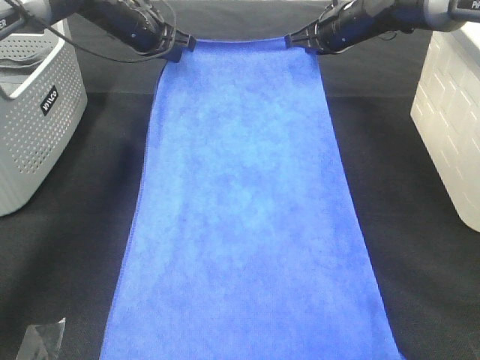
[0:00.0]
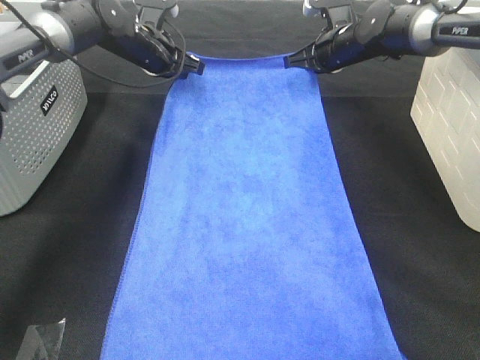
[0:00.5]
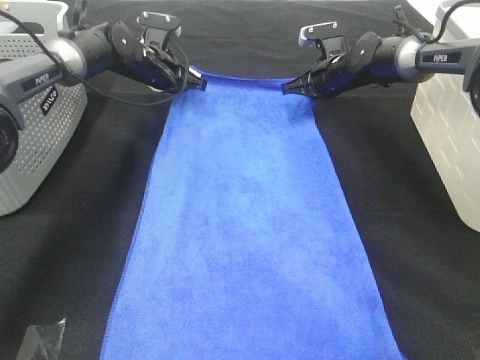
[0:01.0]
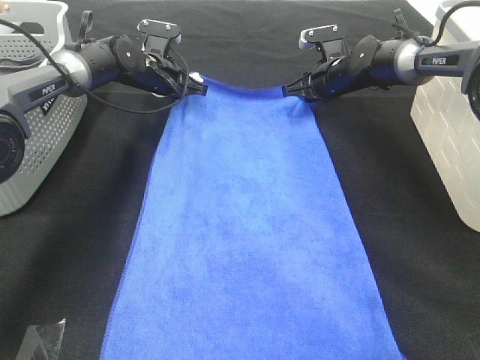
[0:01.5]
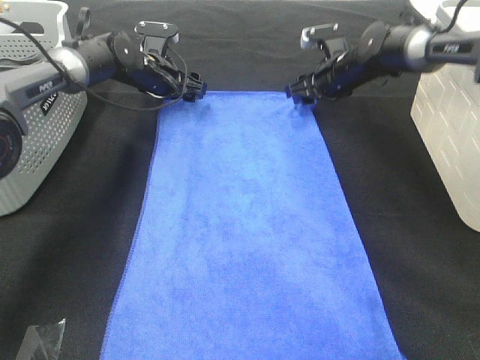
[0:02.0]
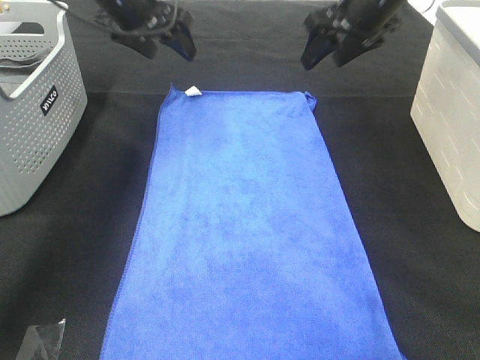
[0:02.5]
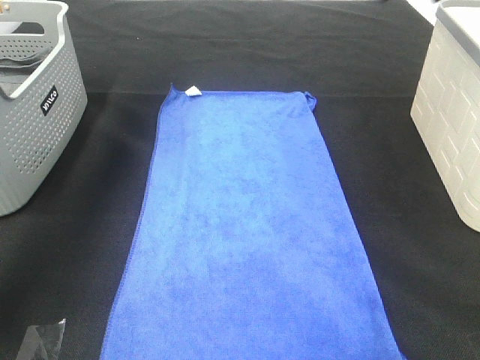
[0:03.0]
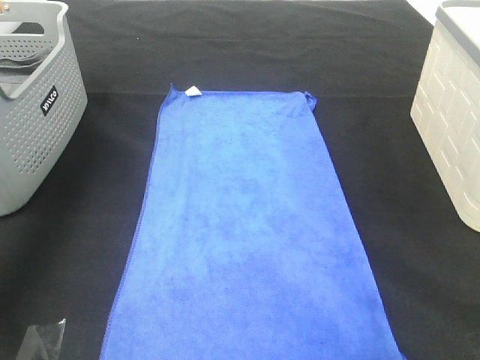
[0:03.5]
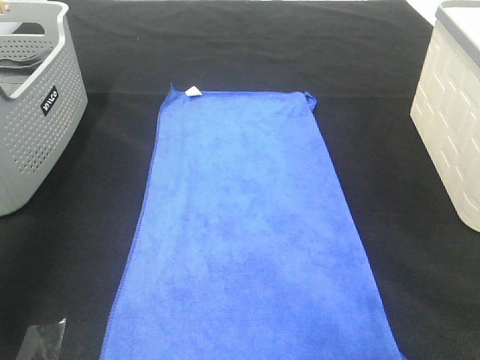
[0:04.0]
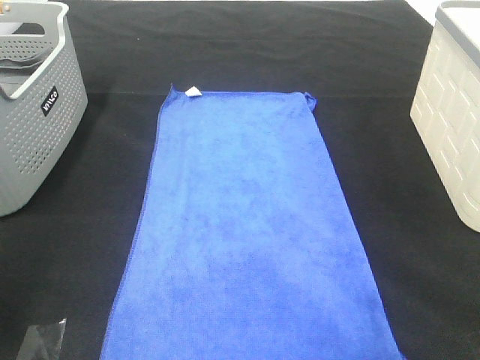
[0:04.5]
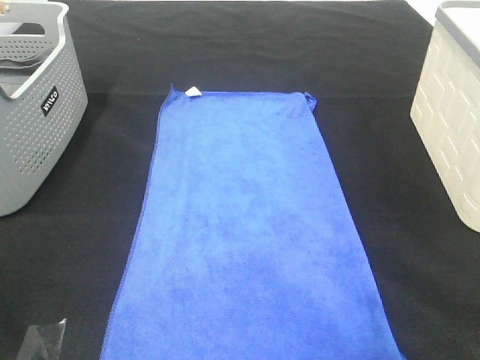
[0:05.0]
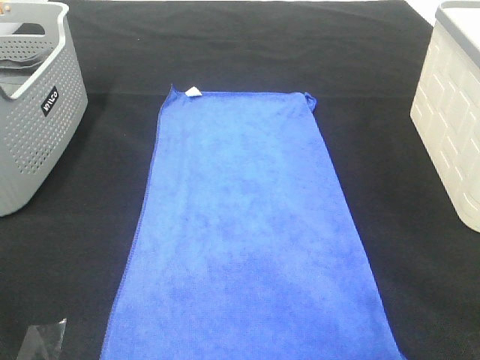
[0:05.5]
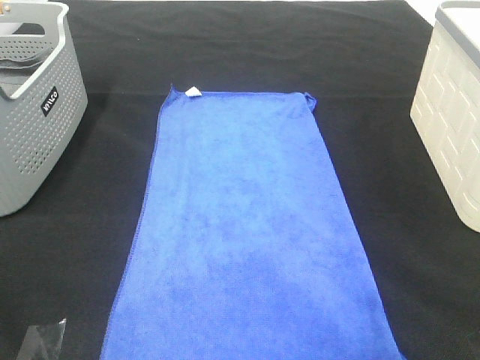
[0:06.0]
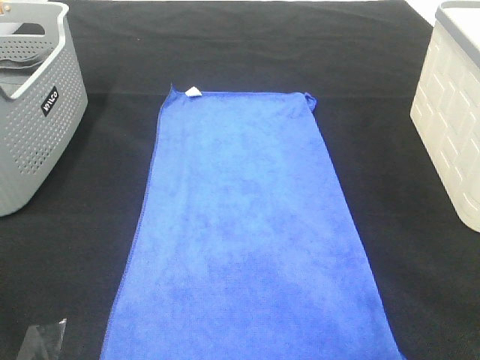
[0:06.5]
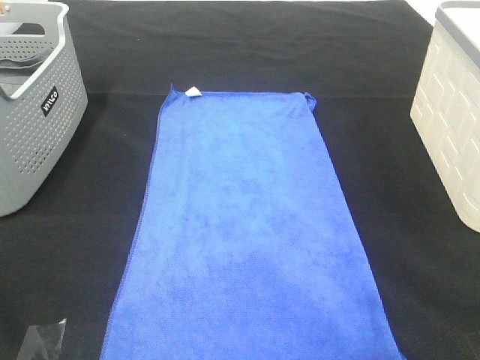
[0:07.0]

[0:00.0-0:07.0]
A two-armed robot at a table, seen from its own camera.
Task of the whole recording: Remove the towel and place it.
0:00.0 to 0:02.0: The grippers both shift downward by roughly 10 cm. The right gripper opens up; the left gripper opens.
0:02.0 to 0:03.5: The left gripper shifts some 35 cm upward, backward and to the left. Meanwhile the right gripper travels upward, backward and to the right by approximately 40 cm.
0:03.5 to 0:05.0: The left gripper travels backward by some 40 cm.

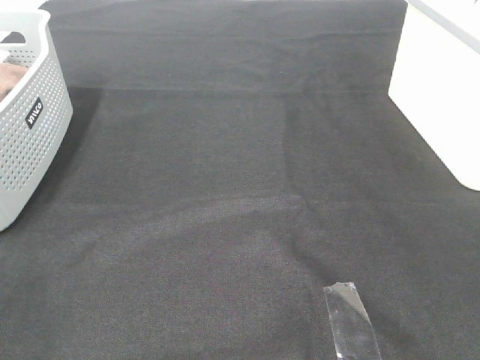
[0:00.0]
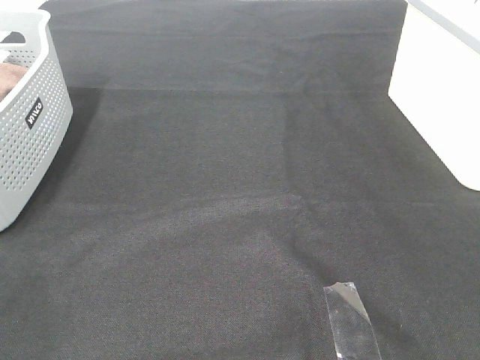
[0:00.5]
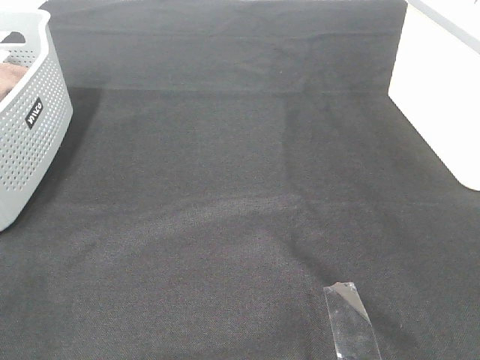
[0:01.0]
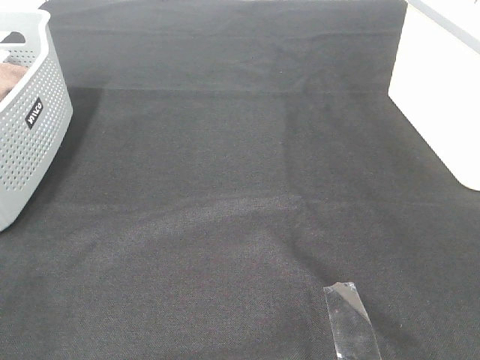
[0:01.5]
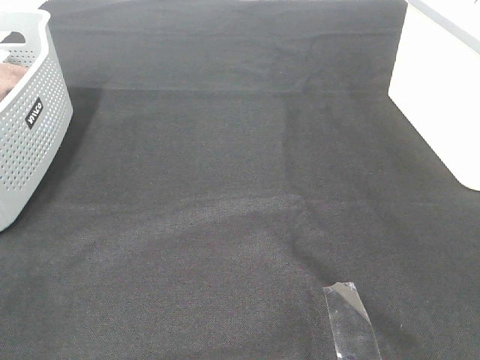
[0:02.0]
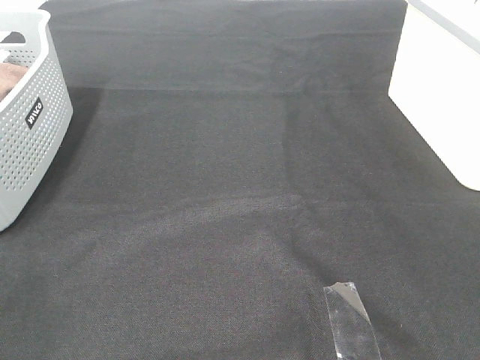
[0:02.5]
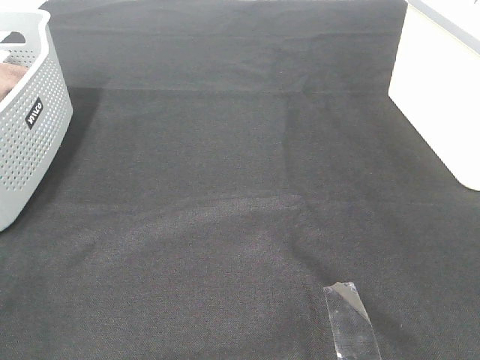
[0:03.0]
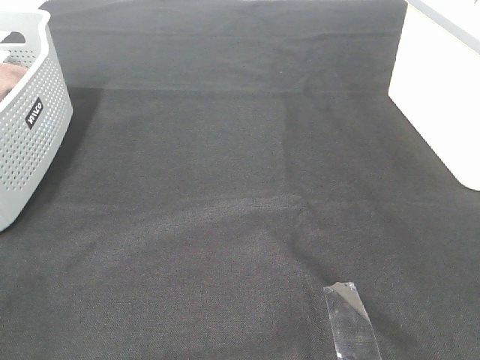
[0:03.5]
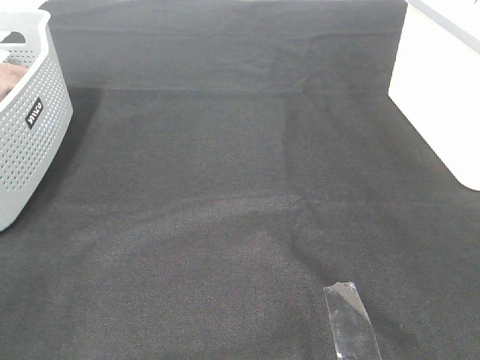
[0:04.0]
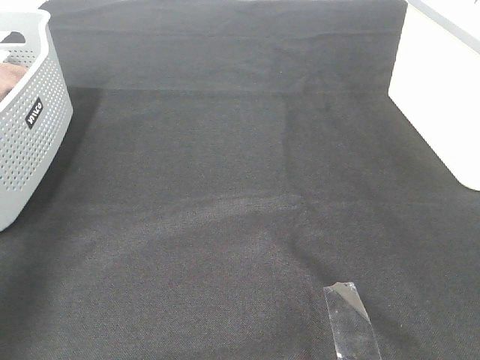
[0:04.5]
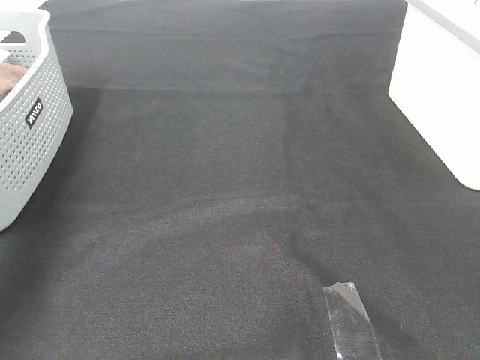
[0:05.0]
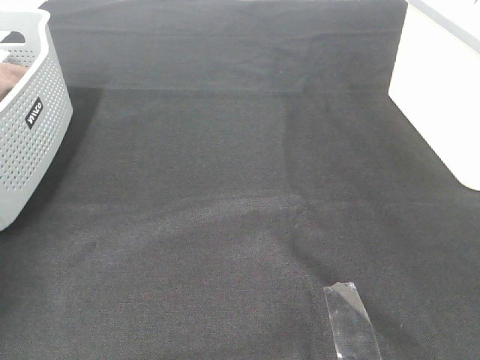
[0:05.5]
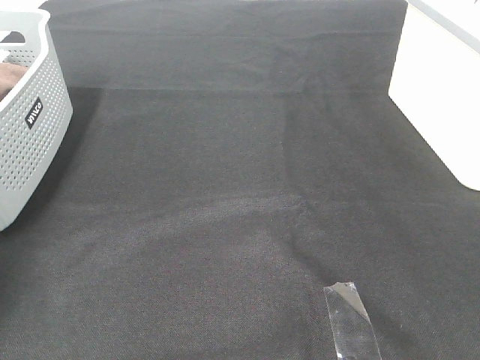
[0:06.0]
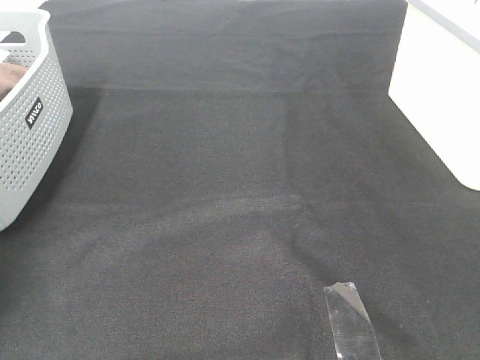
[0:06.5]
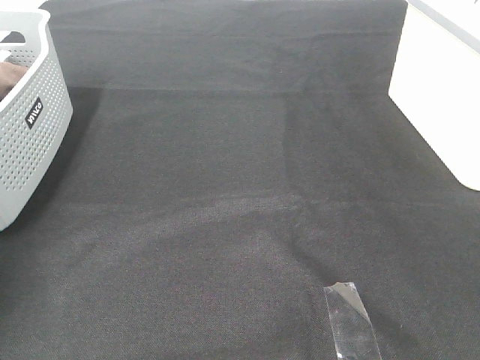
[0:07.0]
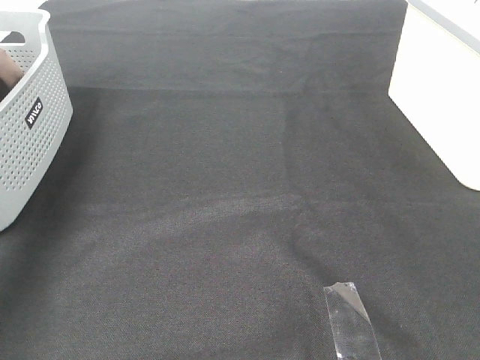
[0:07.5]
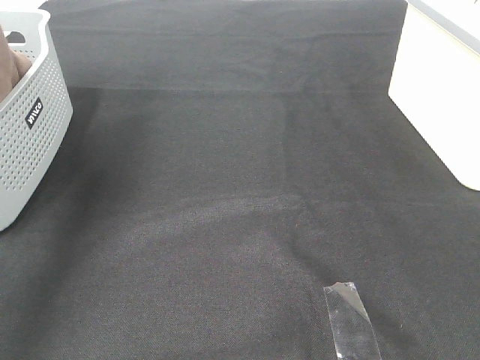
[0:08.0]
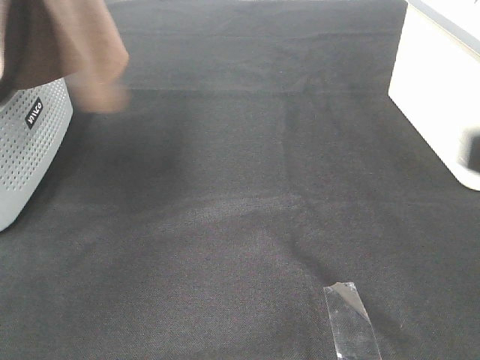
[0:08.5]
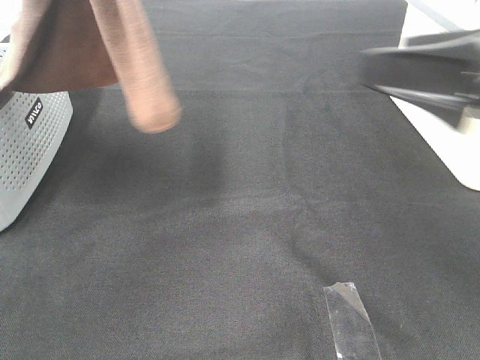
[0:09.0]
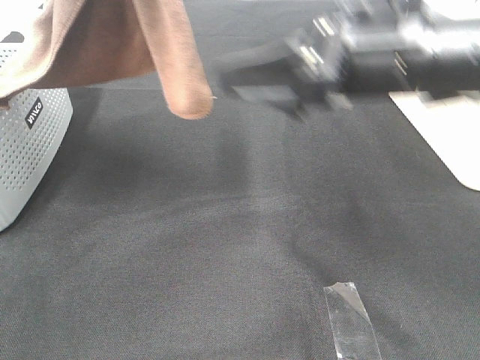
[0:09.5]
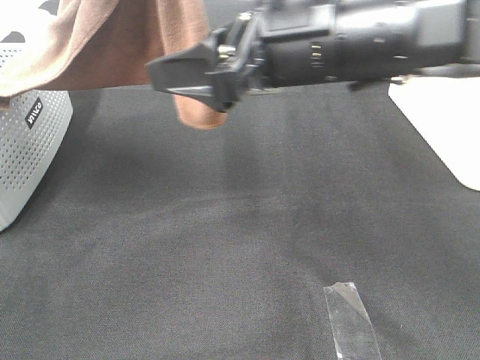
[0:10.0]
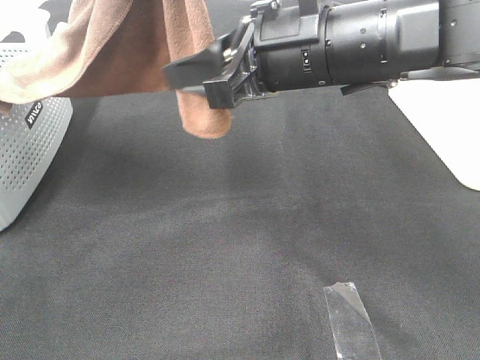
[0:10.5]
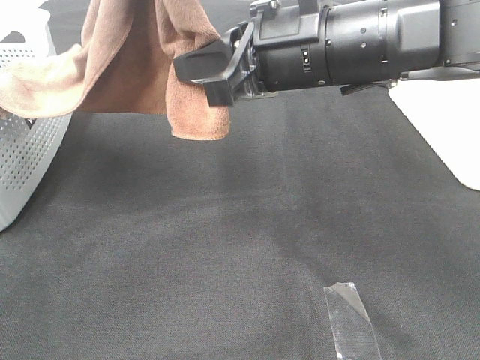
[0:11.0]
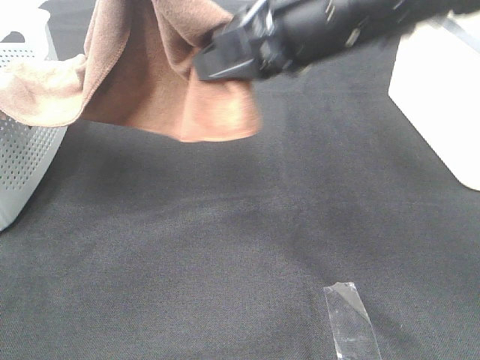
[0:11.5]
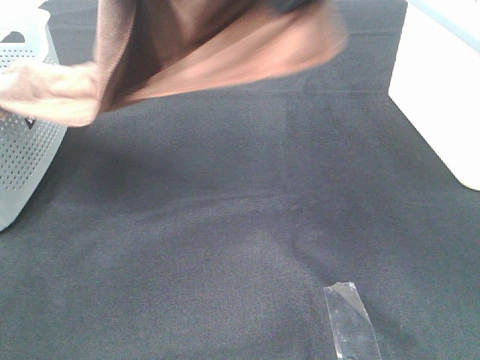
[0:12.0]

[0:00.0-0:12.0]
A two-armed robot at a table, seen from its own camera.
Task of the whole recording: Remove the towel and place it.
0:00.0 to 0:02.0: Both grippers stay put.
0:04.0 to 0:06.0: The left gripper heads forward, covering about 40 cm.
0:06.0 to 0:08.0: The left gripper is displaced upward, to the right and backward by about 35 cm, and closes up.
0:08.0 to 0:10.0: The right gripper goes some 35 cm forward and to the left; the left gripper travels to the right by approximately 15 cm.
0:10.0 to 0:12.0: The right gripper heads upward, covering some 15 cm, and closes up.

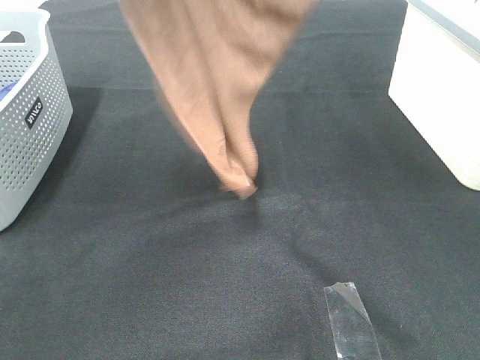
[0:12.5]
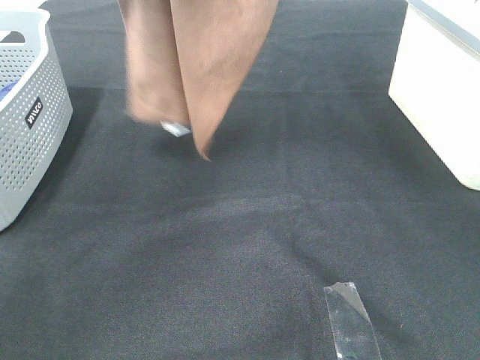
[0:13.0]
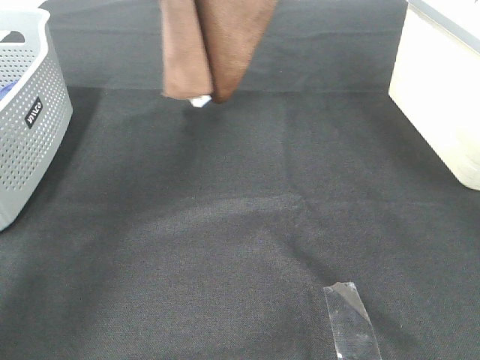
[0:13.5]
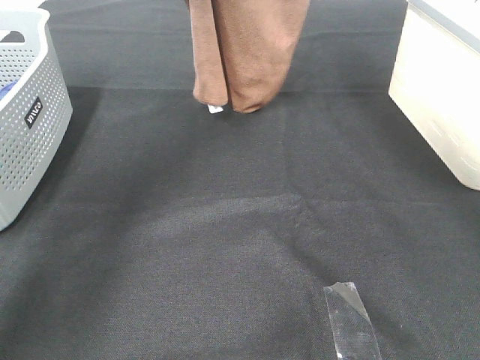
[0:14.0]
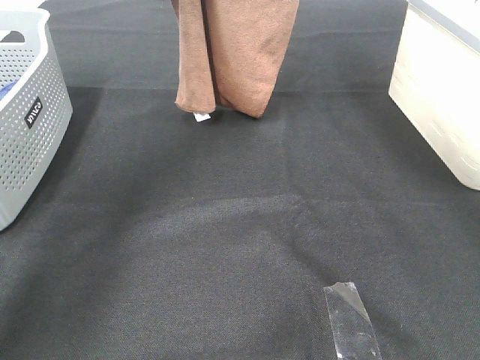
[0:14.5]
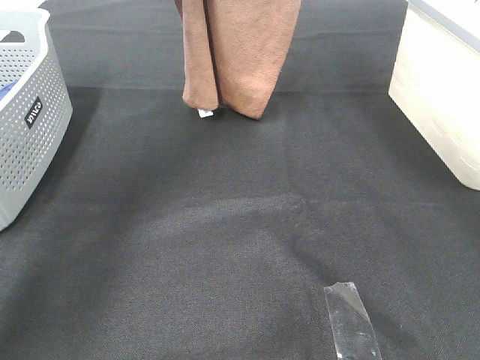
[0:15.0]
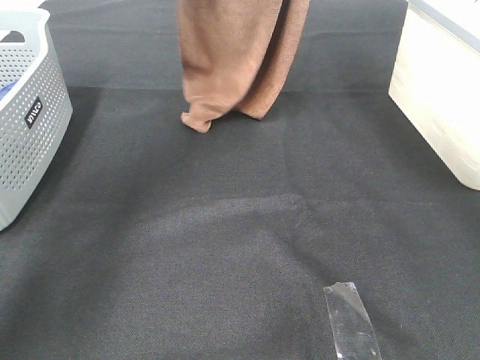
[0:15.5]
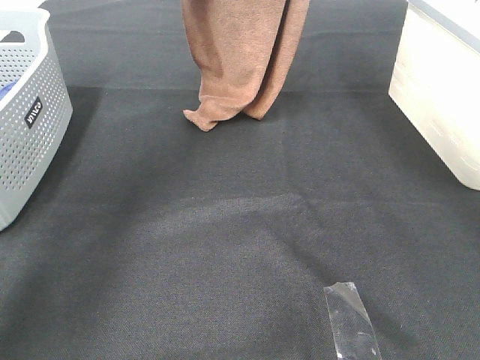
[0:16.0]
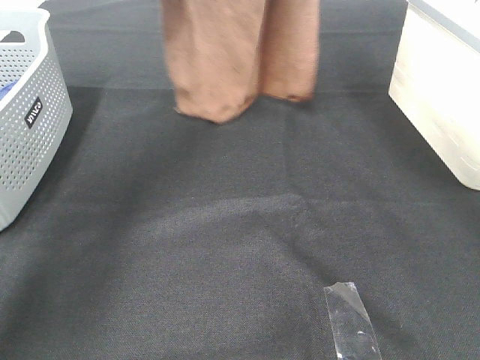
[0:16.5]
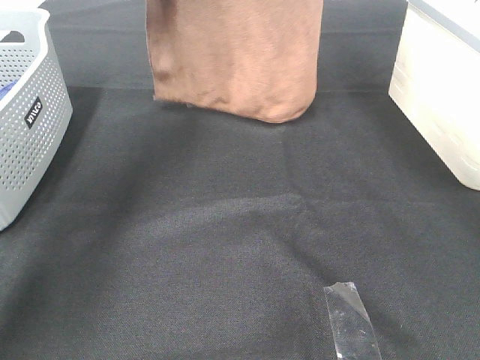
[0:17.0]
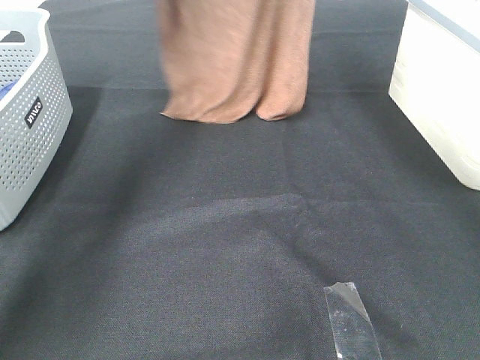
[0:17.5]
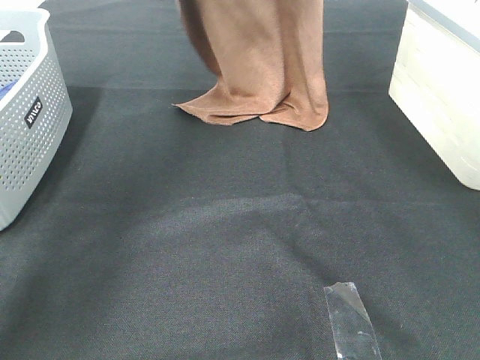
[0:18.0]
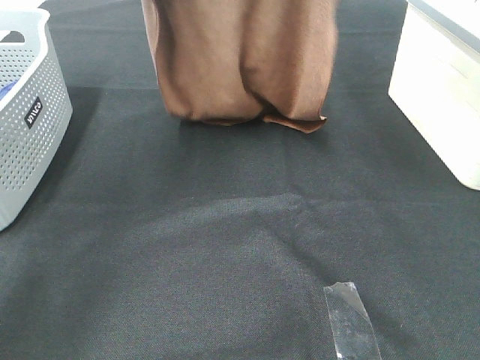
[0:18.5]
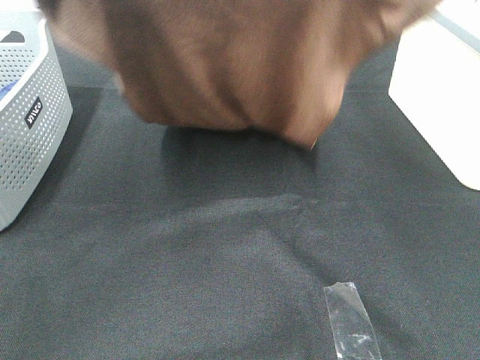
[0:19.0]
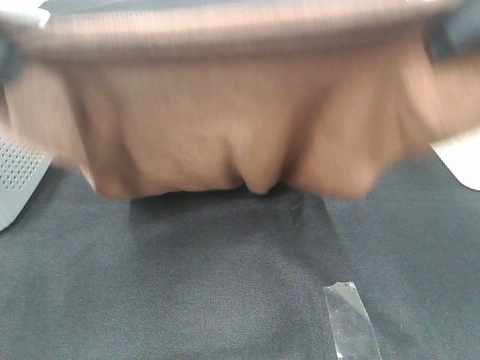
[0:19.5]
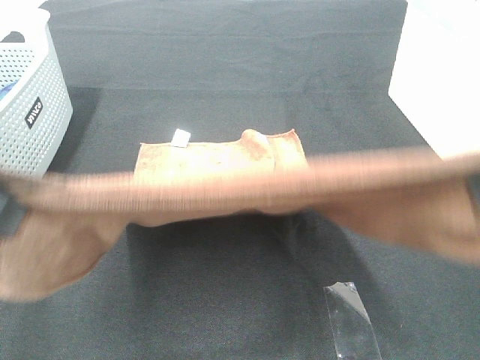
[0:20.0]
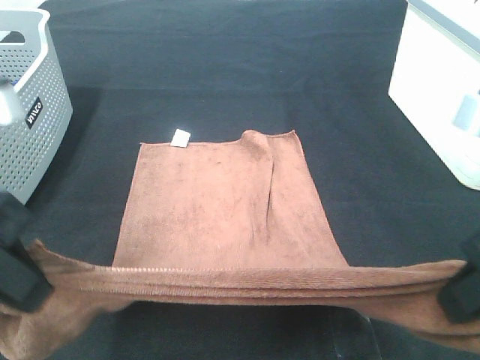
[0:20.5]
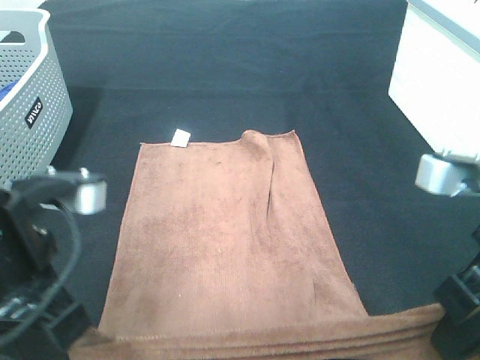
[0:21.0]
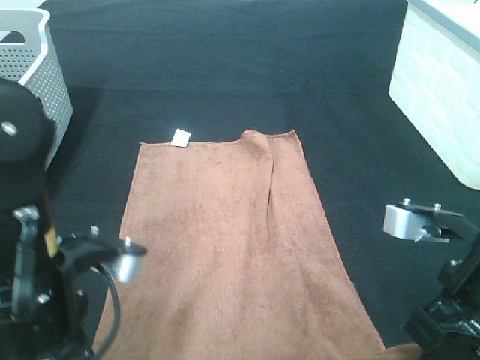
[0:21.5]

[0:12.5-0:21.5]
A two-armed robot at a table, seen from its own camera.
Task of the whole recording: Remove the towel and place it.
Step, 0:14.0 to 0:18.0: Left hand: spread the brown towel flat on the table.
Step, 0:14.0 to 0:18.0: Right hand: spread the brown towel flat on the table.
0:12.5 to 0:14.5: The right gripper travels forward by approximately 15 cm. The left gripper shifts approximately 20 cm forward and downward.
0:14.5 to 0:17.0: The left gripper moves upward, approximately 5 cm.
0:17.0 to 0:19.5: Both grippers travel together backward, about 30 cm.
0:19.5 to 0:21.5: Both grippers move downward, roughly 20 cm.
